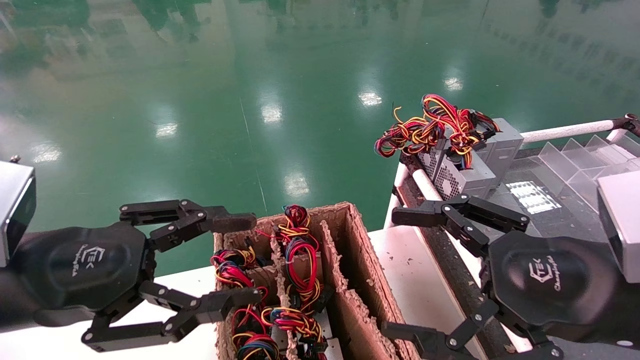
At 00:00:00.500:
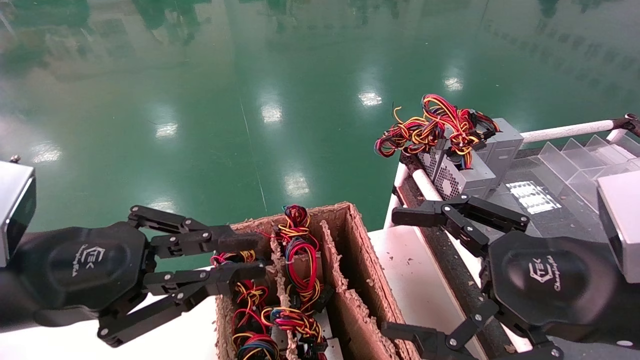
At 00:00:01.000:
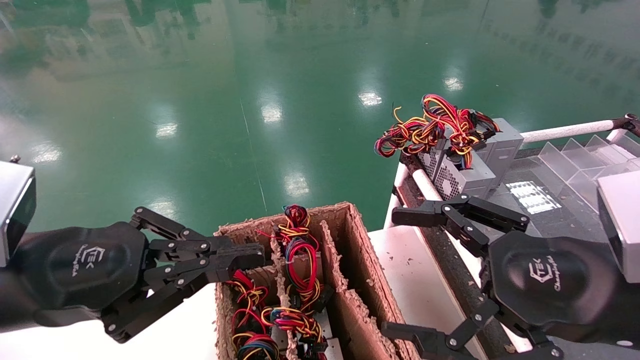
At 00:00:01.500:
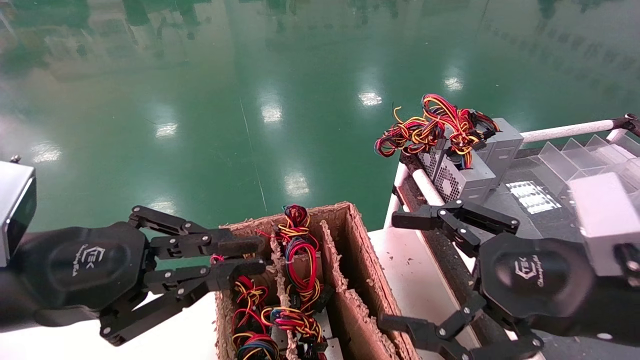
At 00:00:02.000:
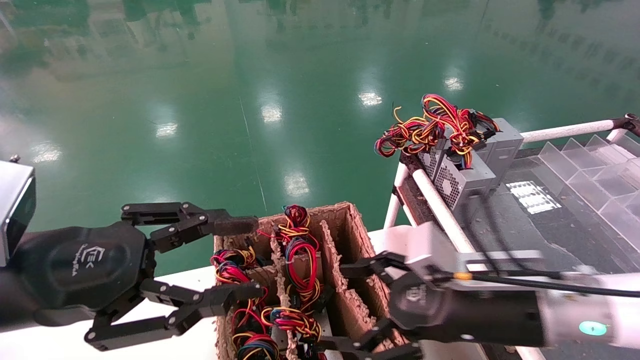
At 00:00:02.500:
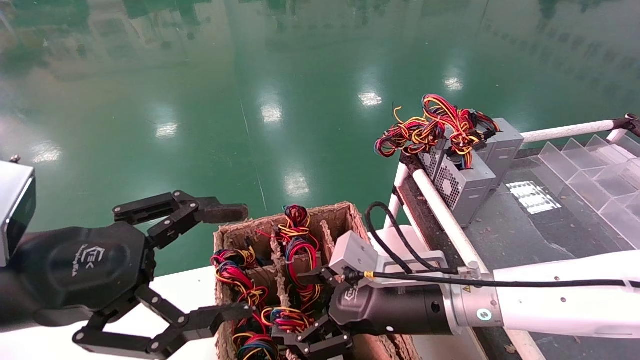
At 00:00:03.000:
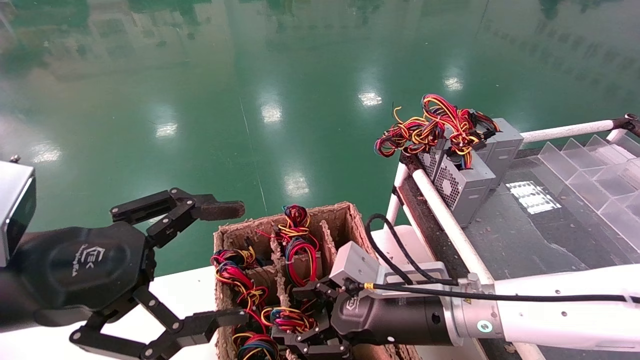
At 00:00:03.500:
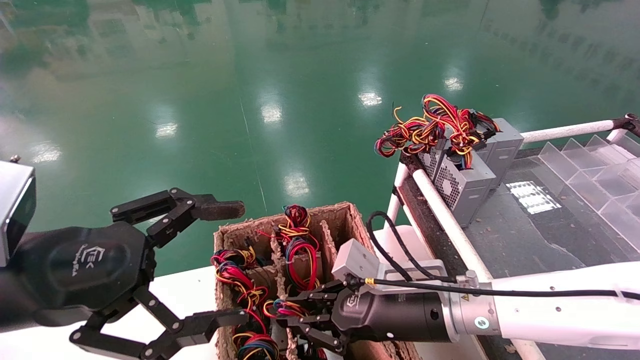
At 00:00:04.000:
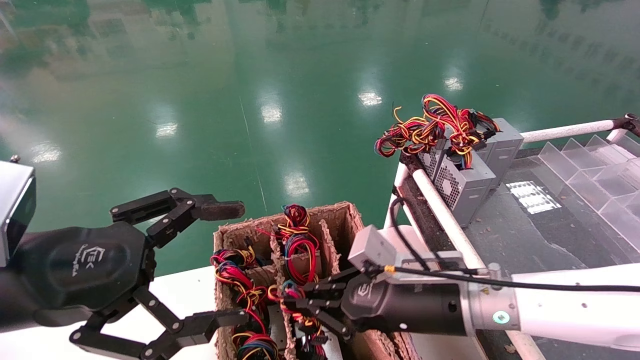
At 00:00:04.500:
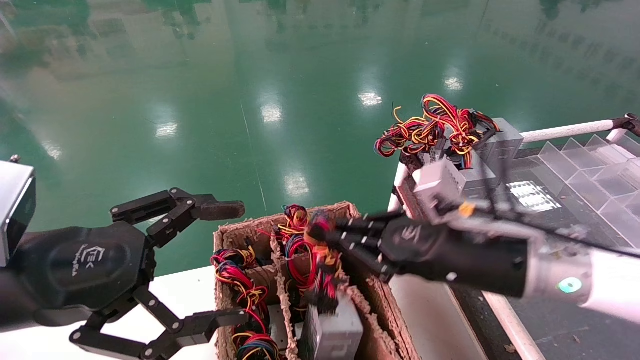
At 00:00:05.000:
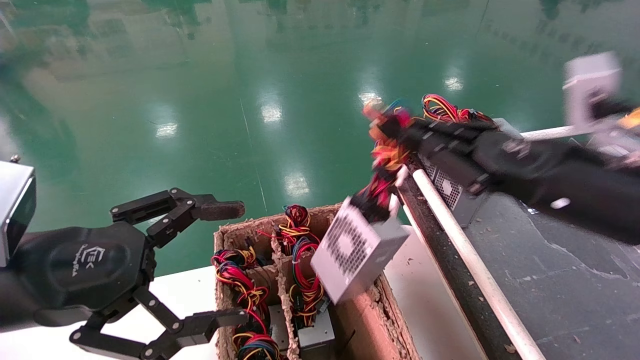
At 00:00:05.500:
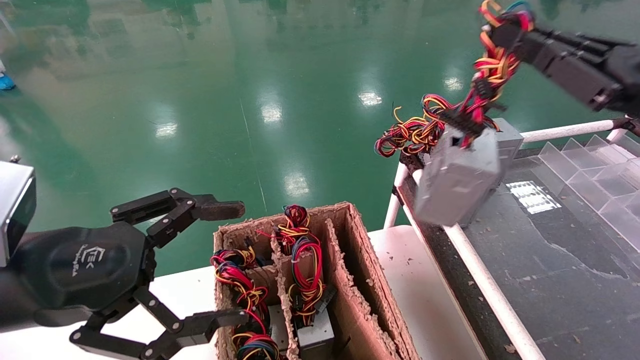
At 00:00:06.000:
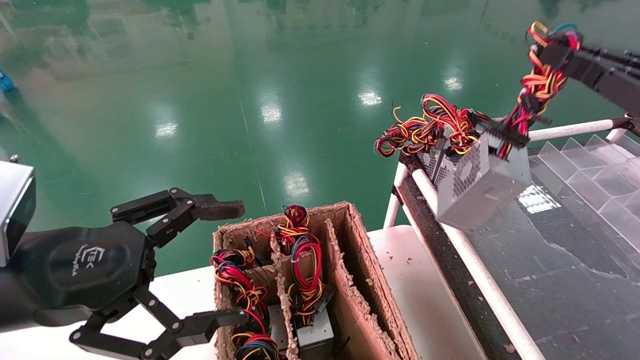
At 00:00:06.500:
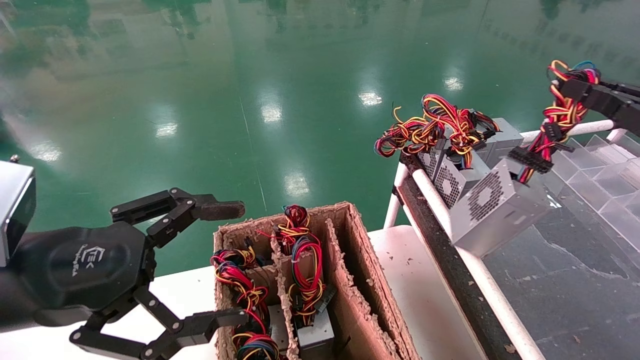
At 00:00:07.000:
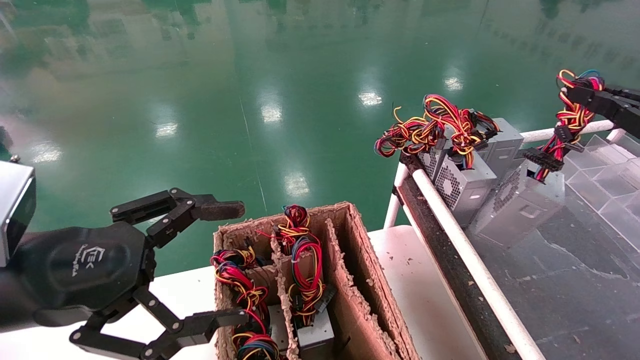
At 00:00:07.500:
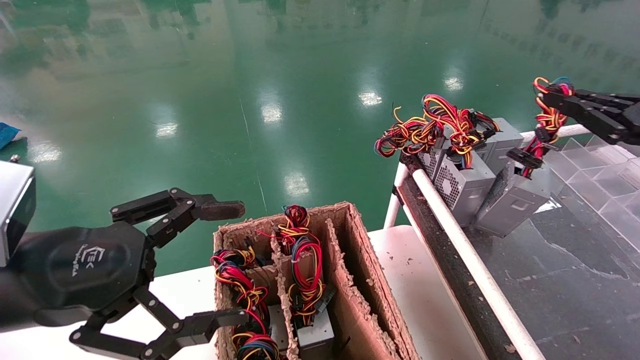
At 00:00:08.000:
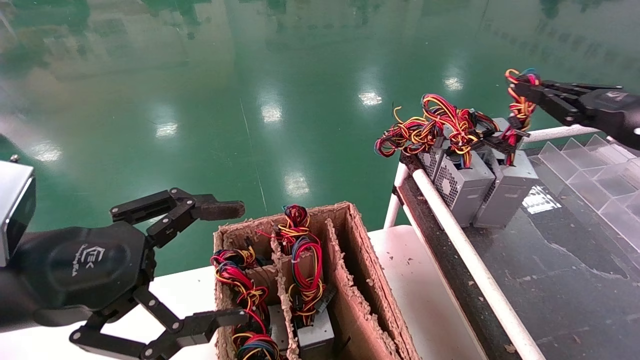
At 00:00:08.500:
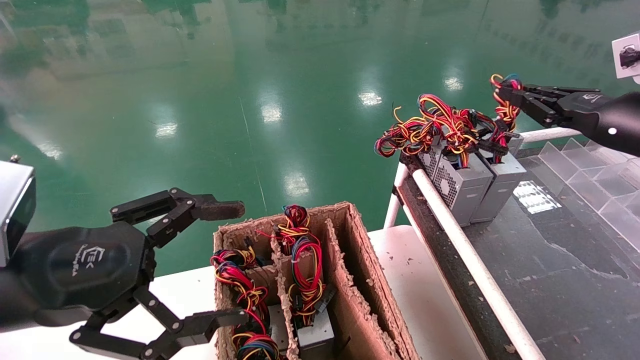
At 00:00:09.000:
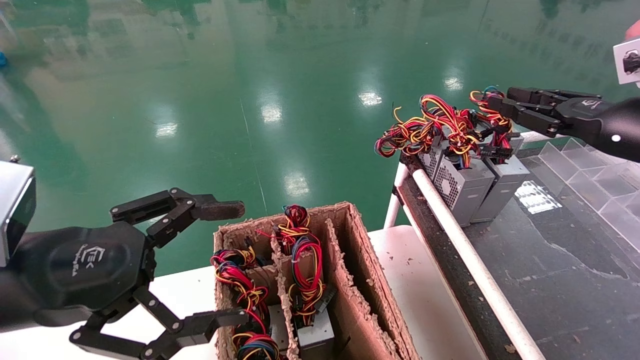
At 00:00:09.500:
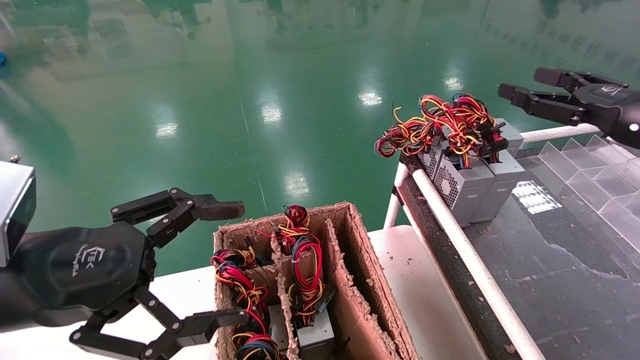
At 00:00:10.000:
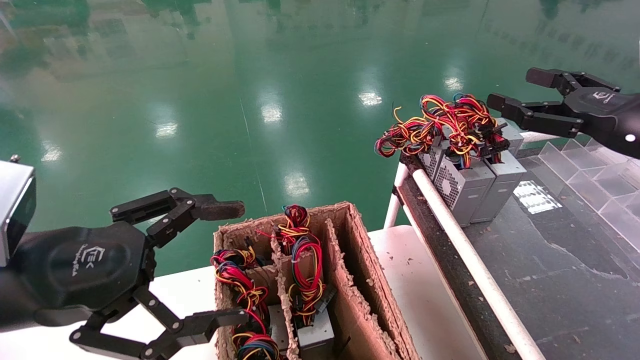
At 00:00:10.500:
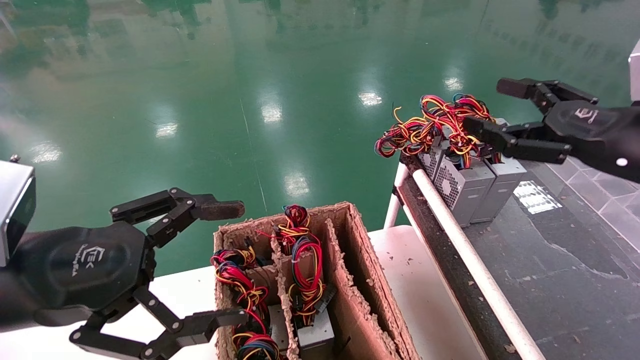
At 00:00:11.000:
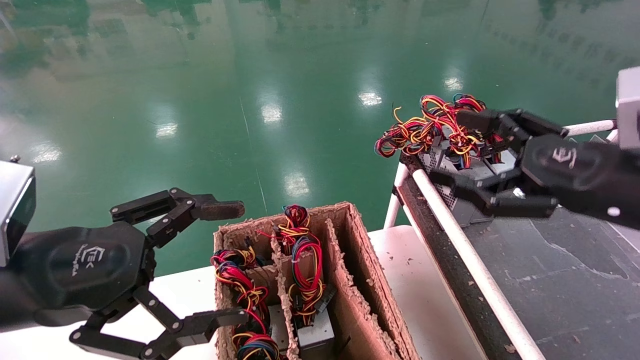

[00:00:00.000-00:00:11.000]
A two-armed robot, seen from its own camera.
Step, 00:00:01.000 to 00:00:03.500: Grab and lift the power supply from the large box.
Step, 00:00:04.000 to 00:00:08.500: Place the power supply on the operating table.
00:00:00.000 to 00:00:02.000: The right gripper goes some 15 cm forward, downward and to the left.
00:00:02.000 to 00:00:03.500: The right gripper is displaced to the left by approximately 5 cm, and closes its fingers; the left gripper opens.
00:00:03.500 to 00:00:05.500: The right gripper travels to the right and upward by approximately 30 cm.
00:00:05.500 to 00:00:07.500: The right gripper is displaced to the right and forward by approximately 10 cm.
00:00:07.500 to 00:00:09.000: The right gripper ends up roughly 5 cm from where it was.
00:00:09.000 to 00:00:11.000: The right gripper travels backward and to the left by roughly 15 cm, and opens up.
